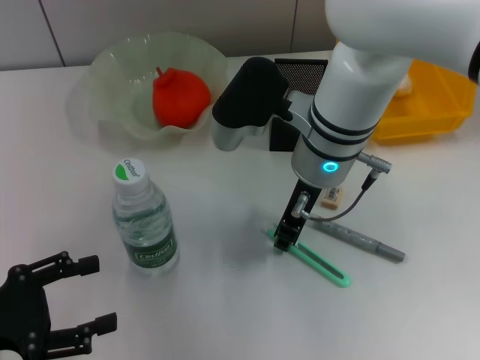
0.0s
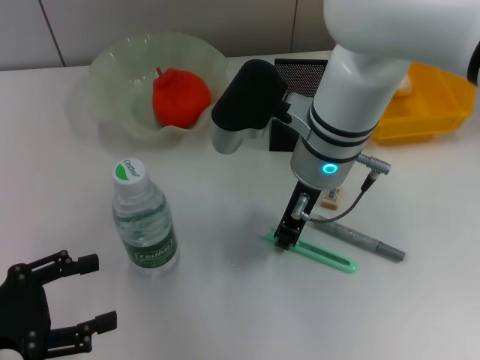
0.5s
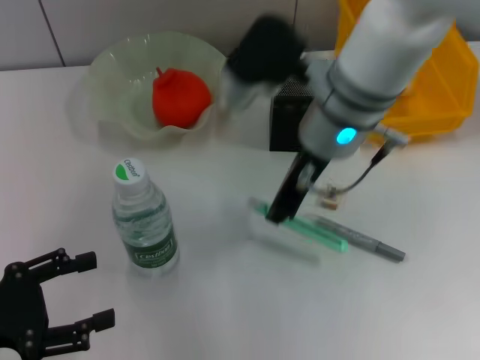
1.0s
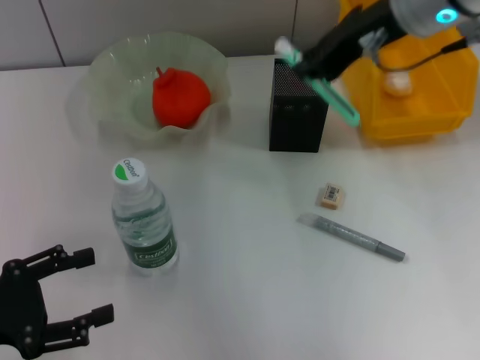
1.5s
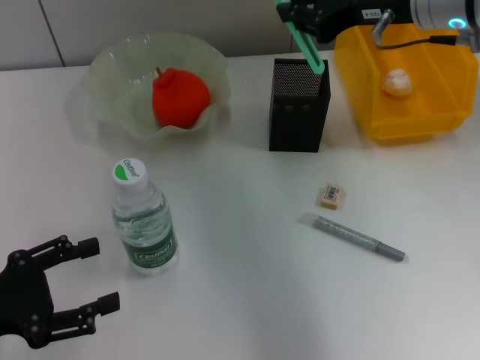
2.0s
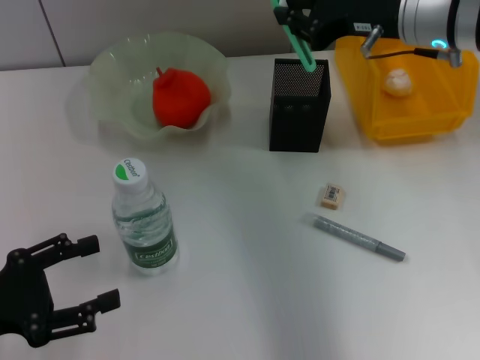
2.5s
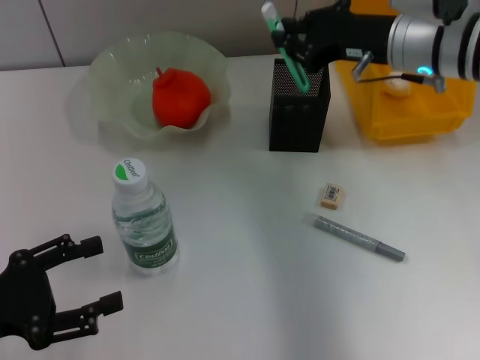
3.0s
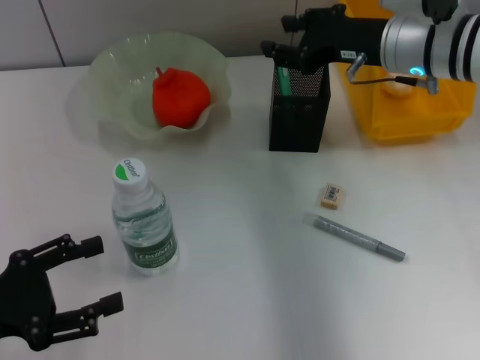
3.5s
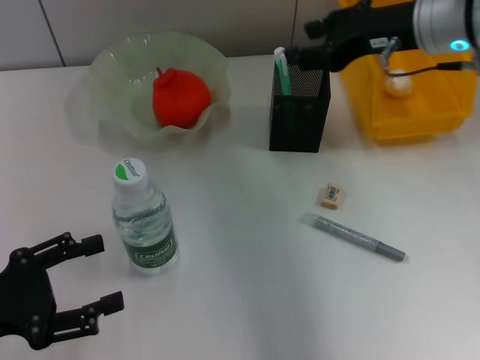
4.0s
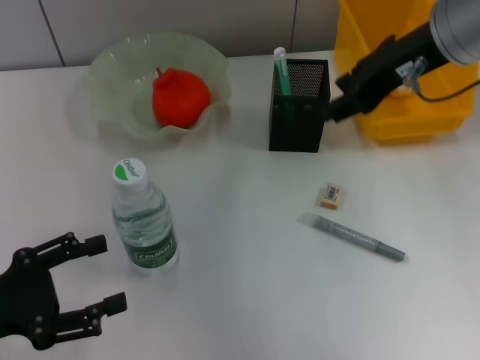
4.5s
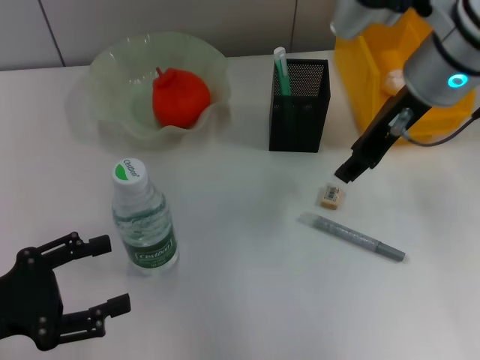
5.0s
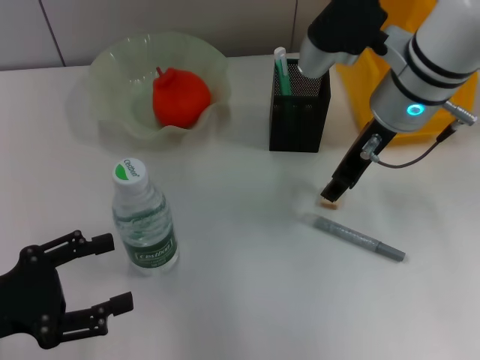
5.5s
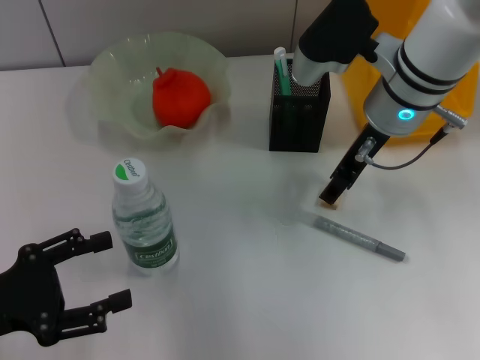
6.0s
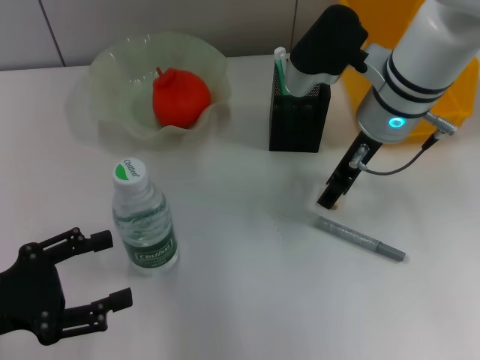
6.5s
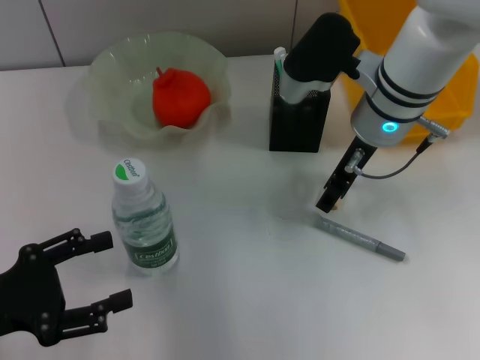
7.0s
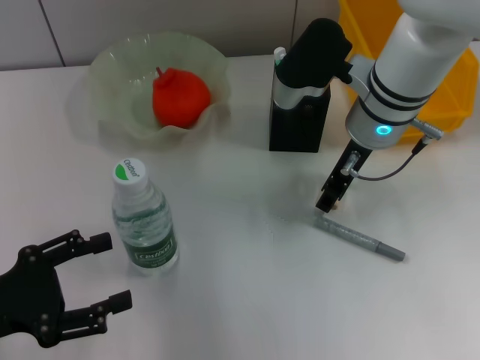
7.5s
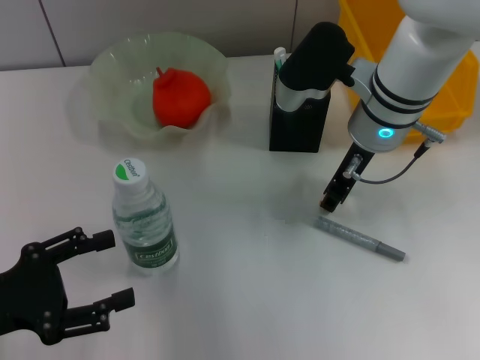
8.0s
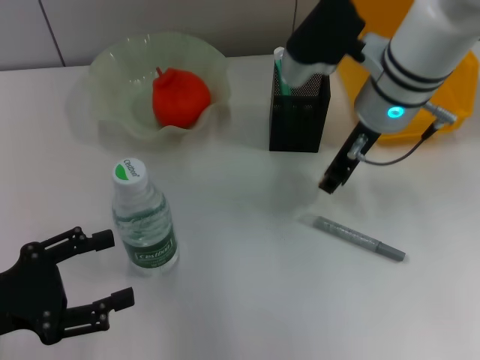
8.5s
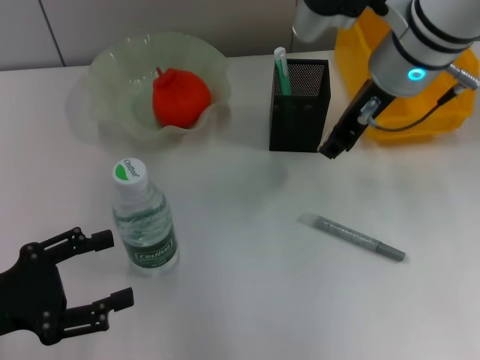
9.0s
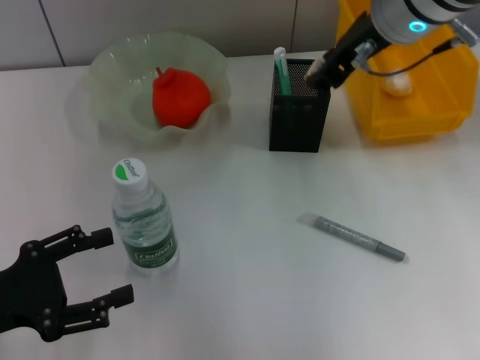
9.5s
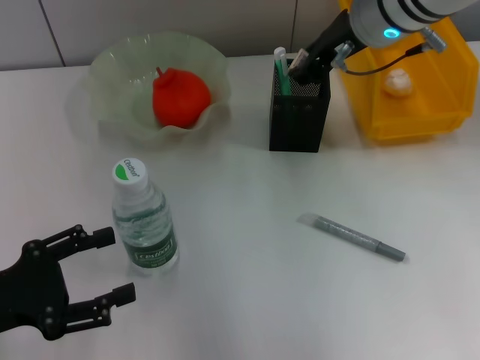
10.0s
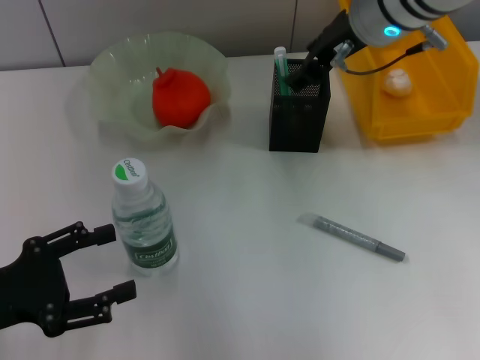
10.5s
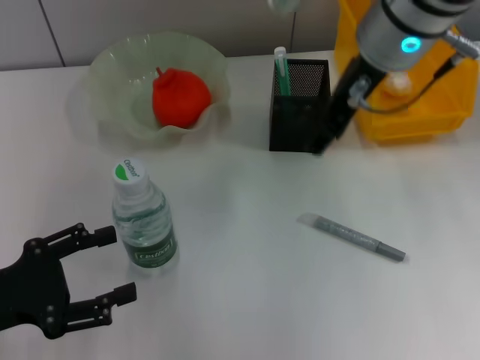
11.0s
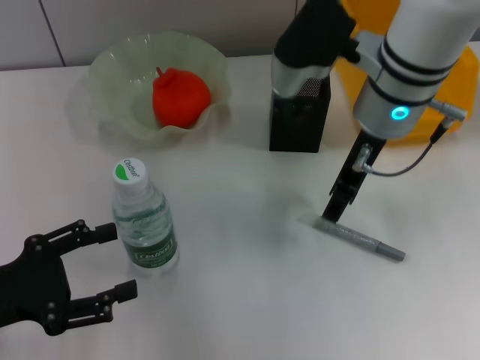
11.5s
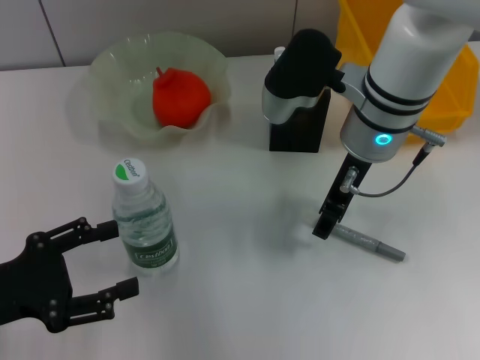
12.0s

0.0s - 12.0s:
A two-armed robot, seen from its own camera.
Step, 1.0s - 3.5s: Place the blue utility knife into the pen holder with the right hand.
Step, 4.0s - 8.0s: Grab the eraser with the right hand.
Step, 8.5s - 10.0s: Put the eraser into the pen holder with the right hand.
0.0s - 2.0s: The right gripper goes roughly 15 cm to the right and upward.
2.0s - 4.0s: The right gripper opens.
4.0s - 6.0s: The right gripper goes some 10 cm downward and to the left.
6.0s - 8.0s: There are only small adjustments of the grippers.
8.0s - 10.0s: The right gripper travels upward by approximately 10 cm.
10.0s - 12.0s: The right gripper travels downward by roughly 5 cm.

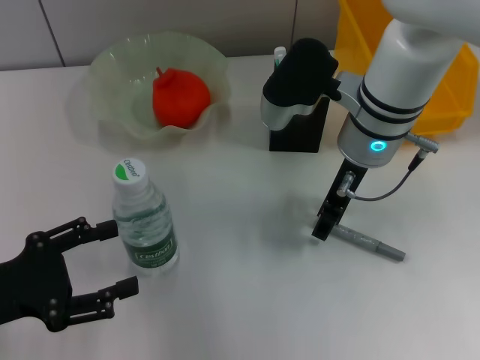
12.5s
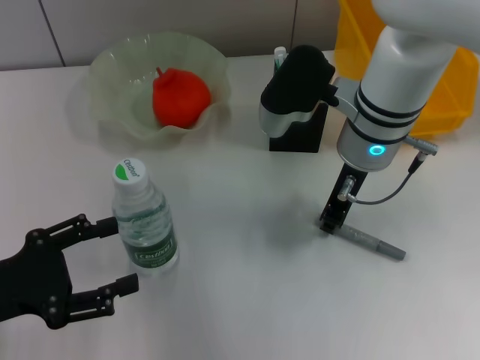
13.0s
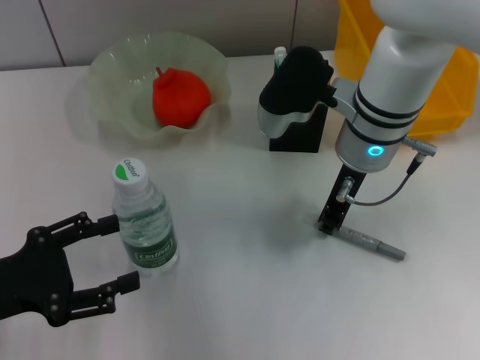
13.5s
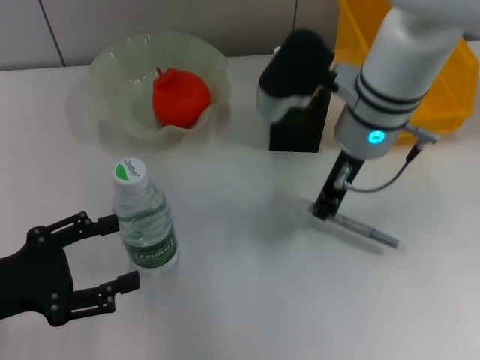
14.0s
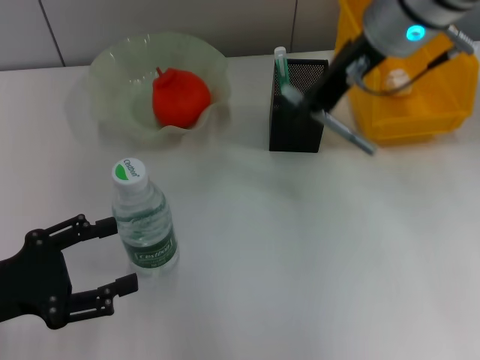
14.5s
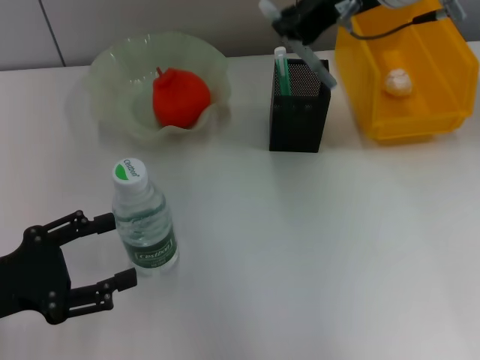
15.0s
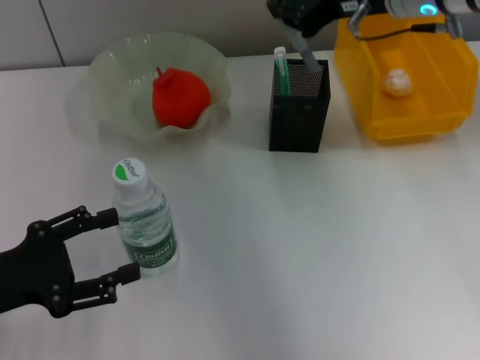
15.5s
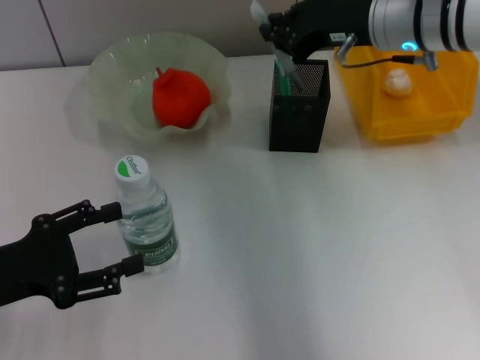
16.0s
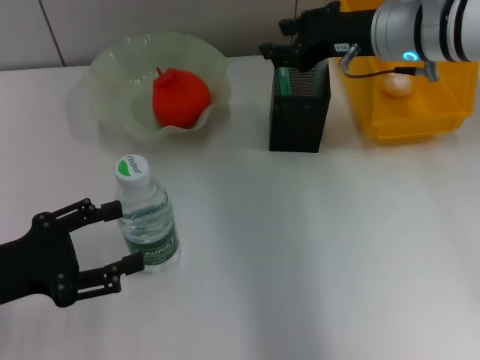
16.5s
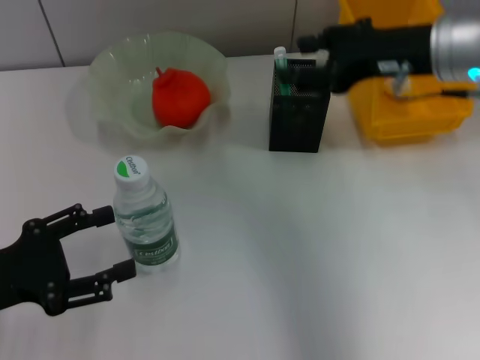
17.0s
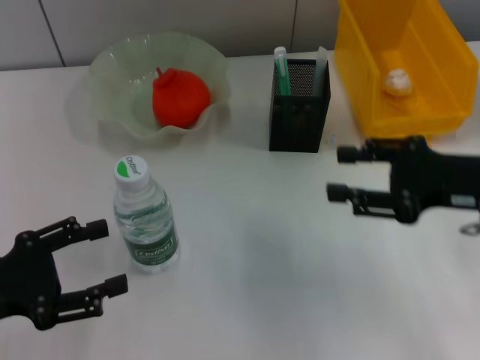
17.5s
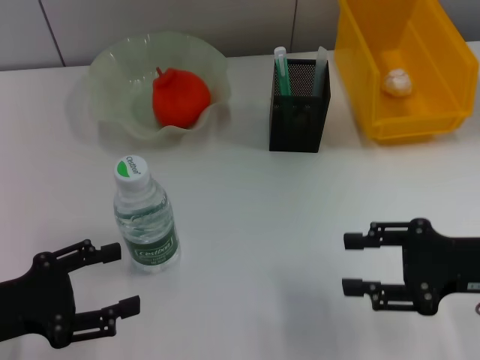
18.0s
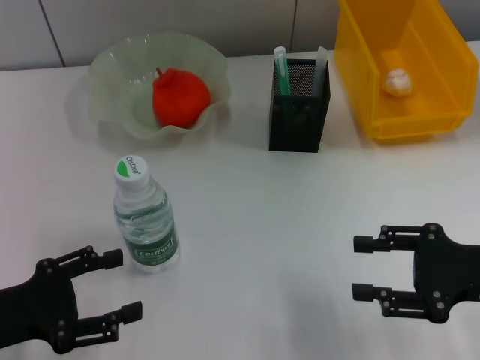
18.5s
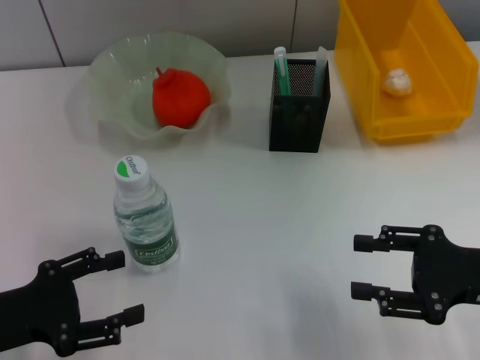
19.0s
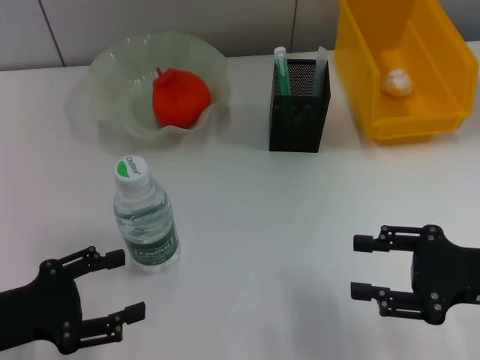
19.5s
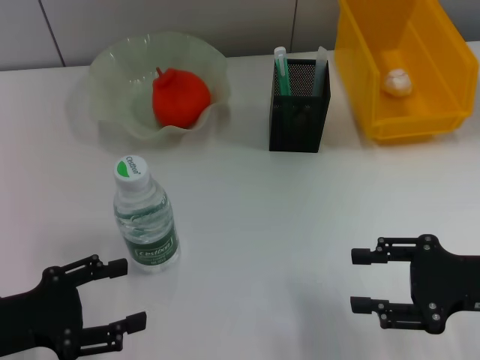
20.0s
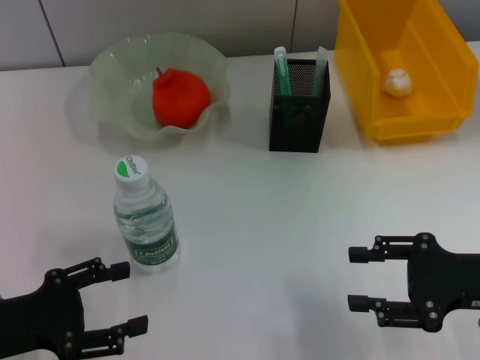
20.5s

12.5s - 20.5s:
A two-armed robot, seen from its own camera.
Step, 14.0s - 16.5s: Place the gray glue into the pen holder with the right hand.
12.5s - 14.5s: The right gripper is displaced upward by approximately 10 cm, and closes its fingers.
14.5s - 16.5s: The right gripper is displaced downward by approximately 5 cm.
16.5s - 18.5s: The right gripper is displaced backward, to the right and downward by roughly 25 cm, and opens its fingers.
18.5s - 20.5s: Both grippers stay about where they are.

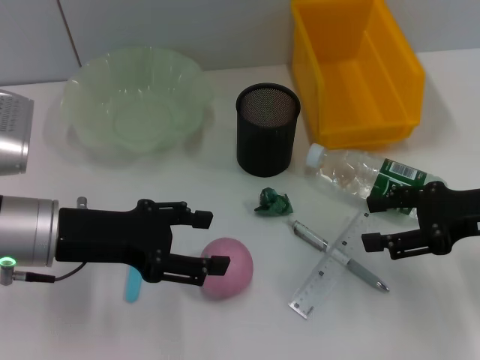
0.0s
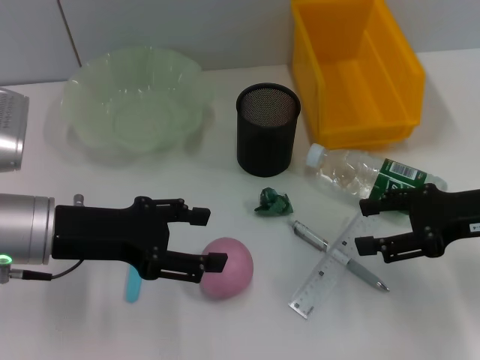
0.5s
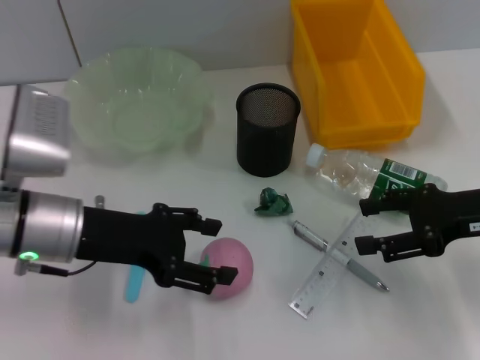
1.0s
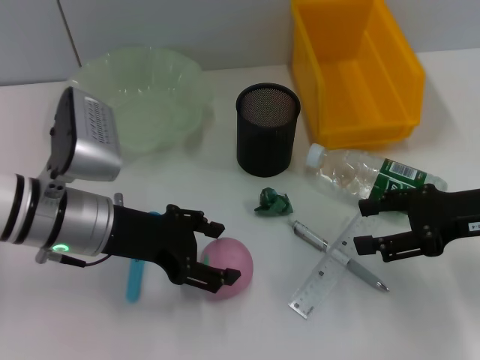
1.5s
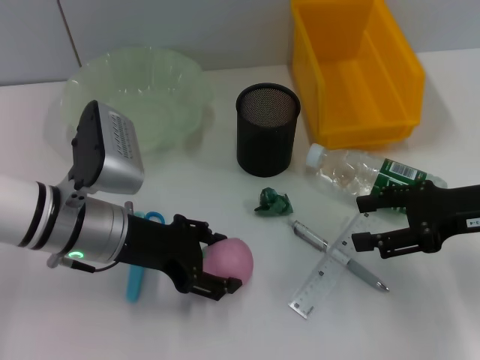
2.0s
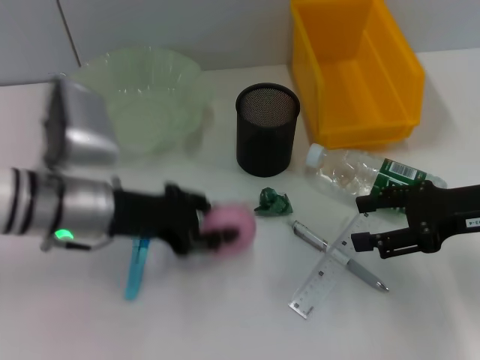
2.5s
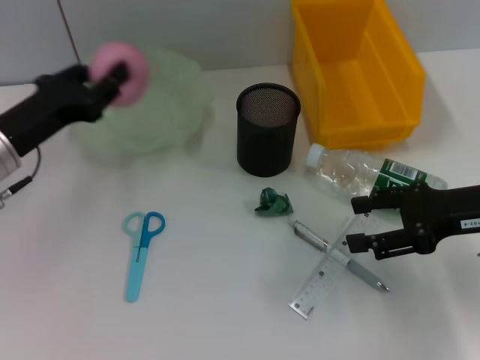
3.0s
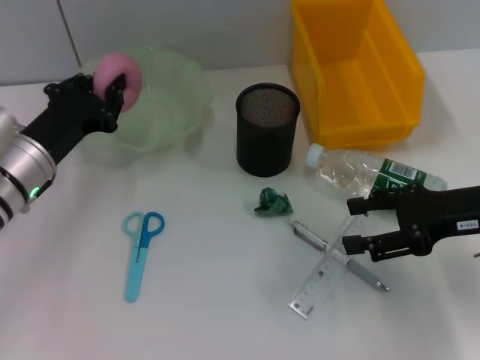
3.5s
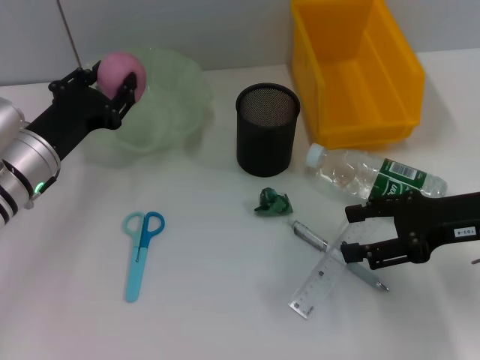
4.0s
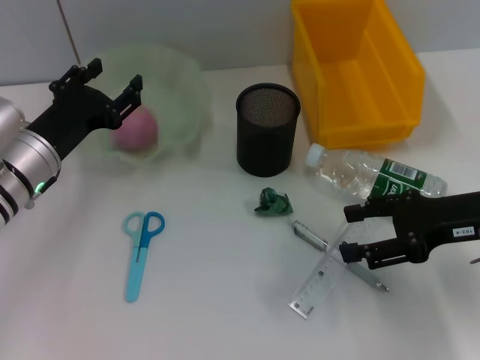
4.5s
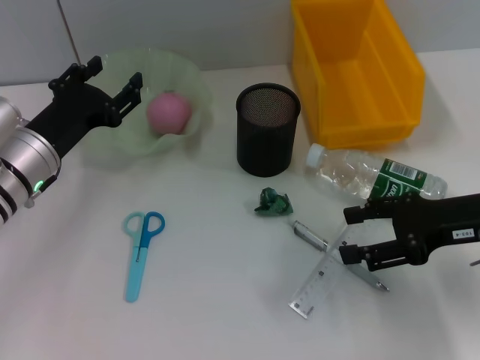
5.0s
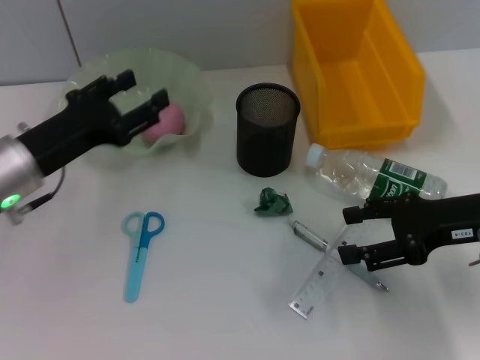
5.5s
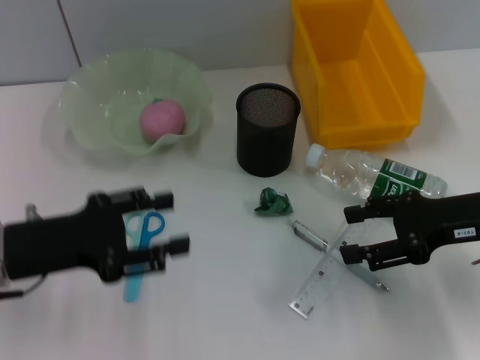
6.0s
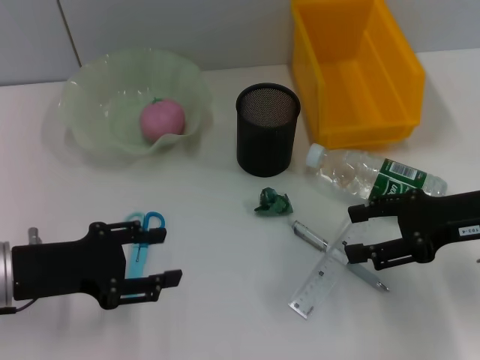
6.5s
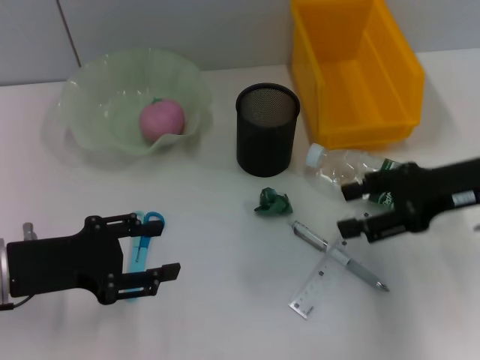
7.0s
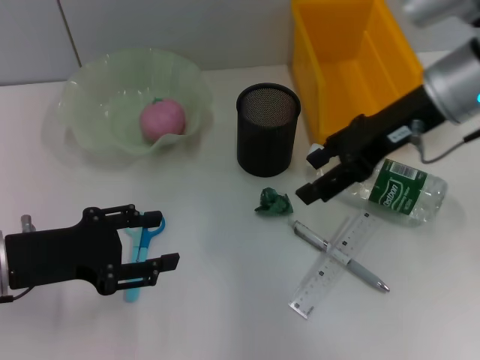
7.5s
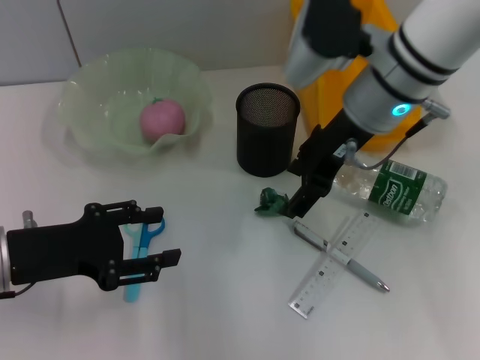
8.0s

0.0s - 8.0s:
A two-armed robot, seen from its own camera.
Step, 0.0s - 2.0s: Grab the peach with the left hand.
Step, 2.5s - 4.0s: Place the peach into the fruit bowl with the left hand.
0.0s - 2.0s: The left gripper changes place by about 5 cm.
2.0s - 4.0s: The left gripper travels to the left by some 5 cm, and closes.
4.0s - 6.0s: The left gripper travels backward by about 10 cm, and opens its fingers.
6.0s - 8.0s: The right gripper shifts roughly 20 cm to the left, forward and upward.
